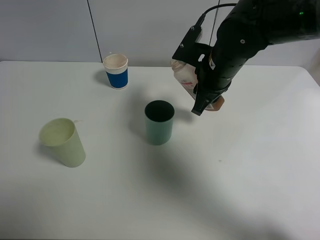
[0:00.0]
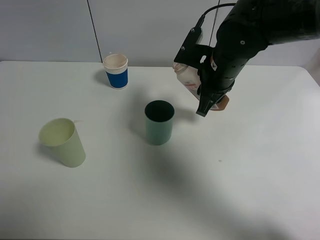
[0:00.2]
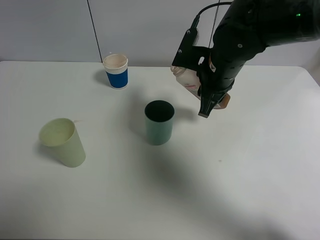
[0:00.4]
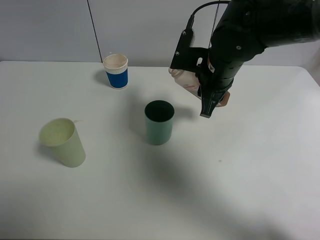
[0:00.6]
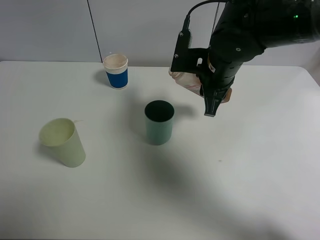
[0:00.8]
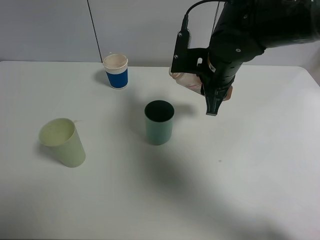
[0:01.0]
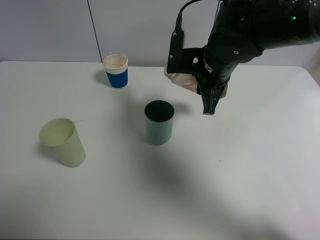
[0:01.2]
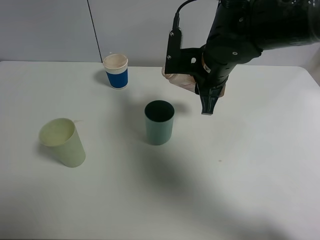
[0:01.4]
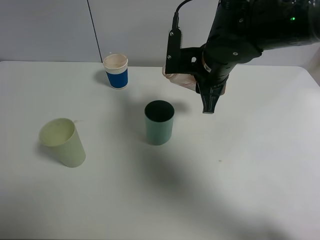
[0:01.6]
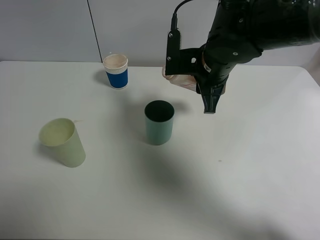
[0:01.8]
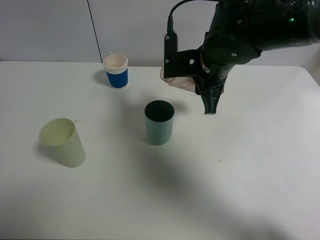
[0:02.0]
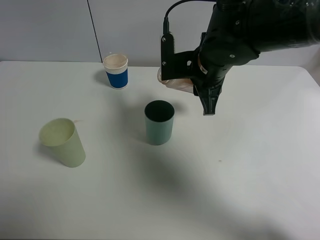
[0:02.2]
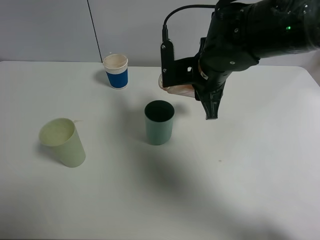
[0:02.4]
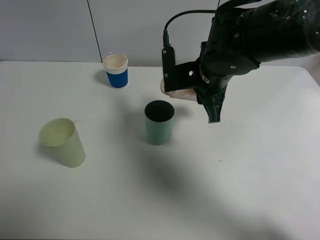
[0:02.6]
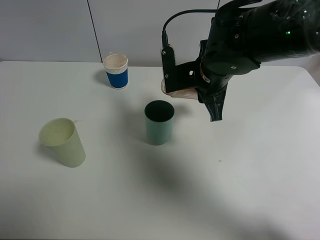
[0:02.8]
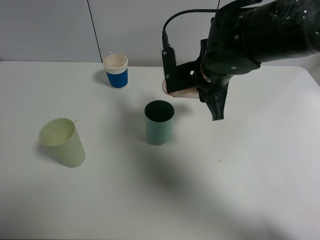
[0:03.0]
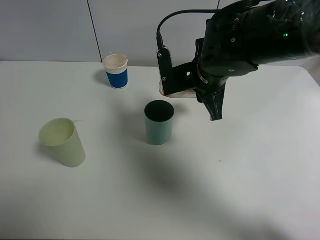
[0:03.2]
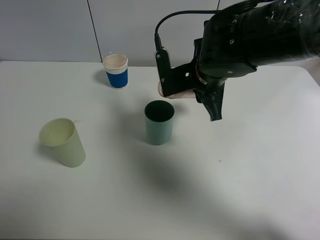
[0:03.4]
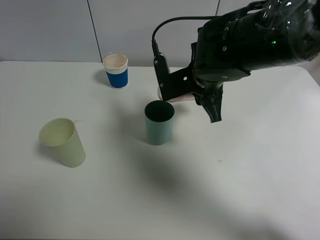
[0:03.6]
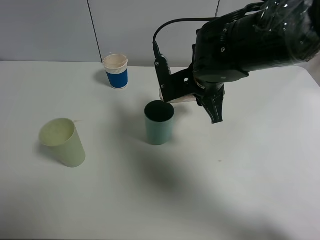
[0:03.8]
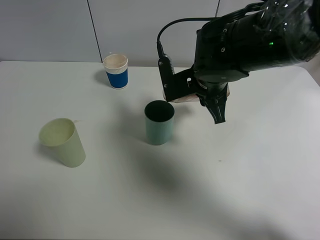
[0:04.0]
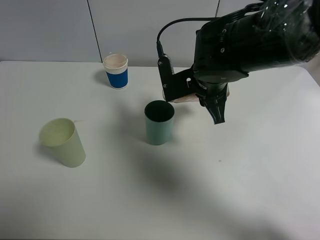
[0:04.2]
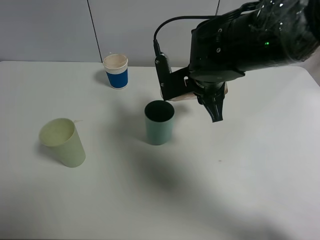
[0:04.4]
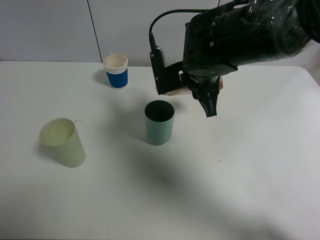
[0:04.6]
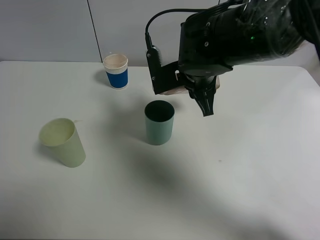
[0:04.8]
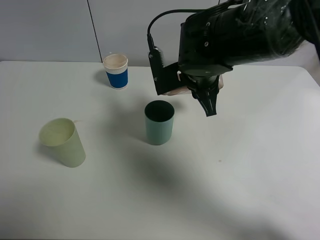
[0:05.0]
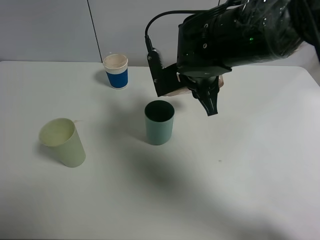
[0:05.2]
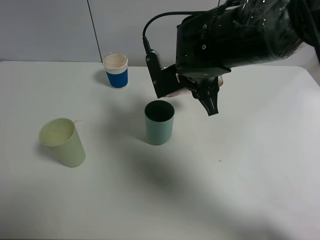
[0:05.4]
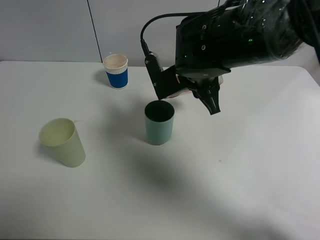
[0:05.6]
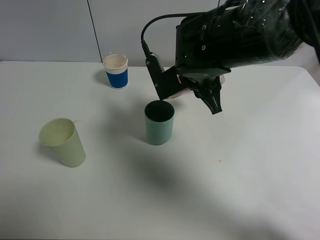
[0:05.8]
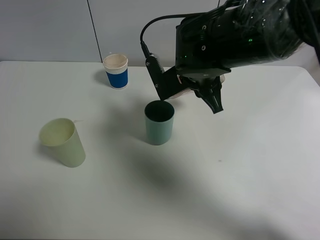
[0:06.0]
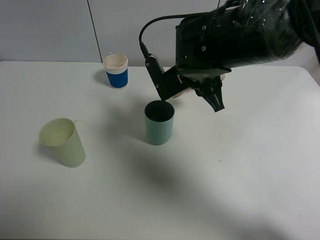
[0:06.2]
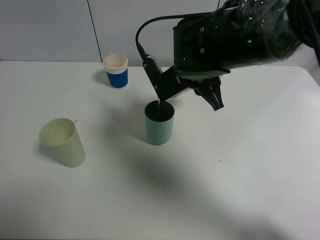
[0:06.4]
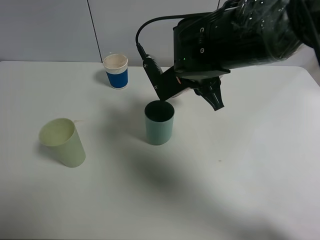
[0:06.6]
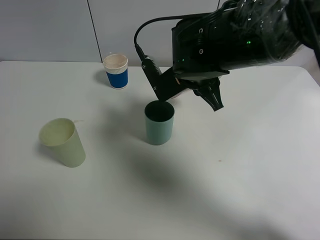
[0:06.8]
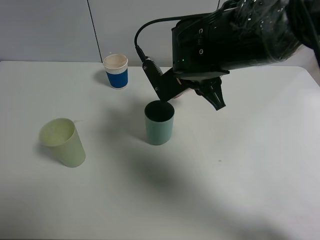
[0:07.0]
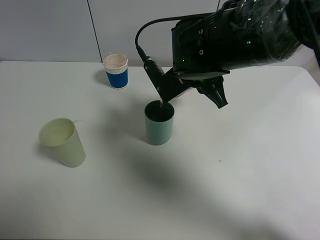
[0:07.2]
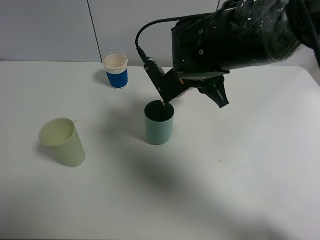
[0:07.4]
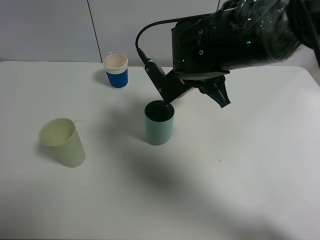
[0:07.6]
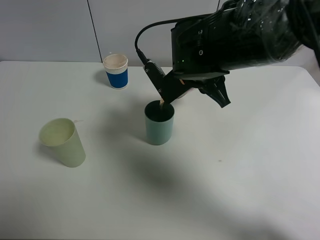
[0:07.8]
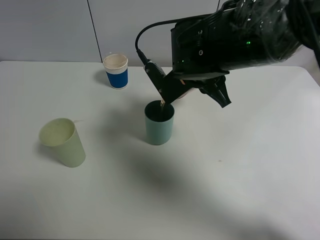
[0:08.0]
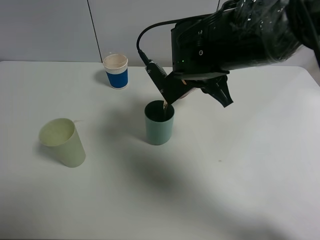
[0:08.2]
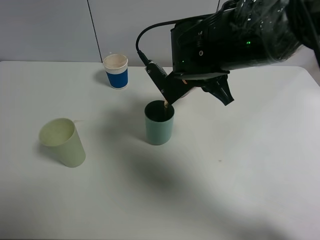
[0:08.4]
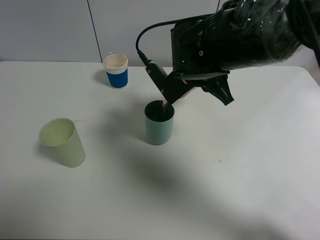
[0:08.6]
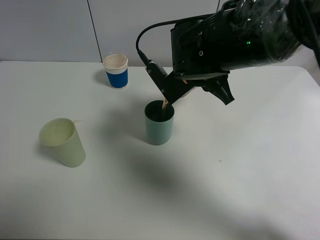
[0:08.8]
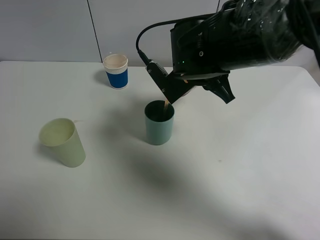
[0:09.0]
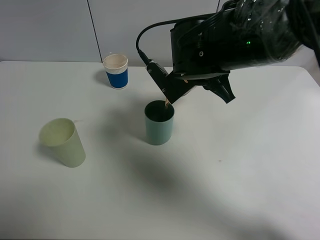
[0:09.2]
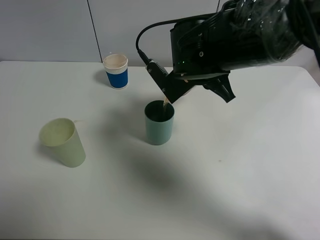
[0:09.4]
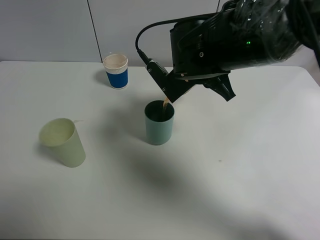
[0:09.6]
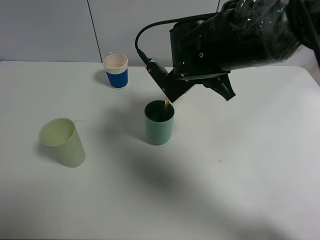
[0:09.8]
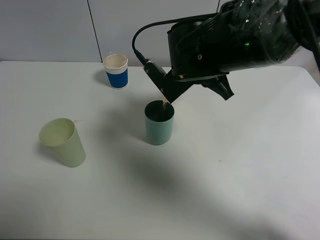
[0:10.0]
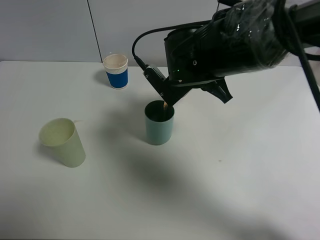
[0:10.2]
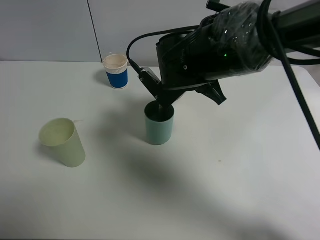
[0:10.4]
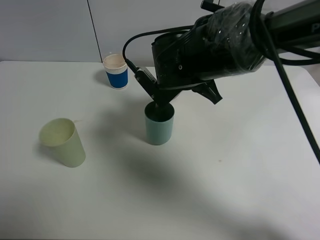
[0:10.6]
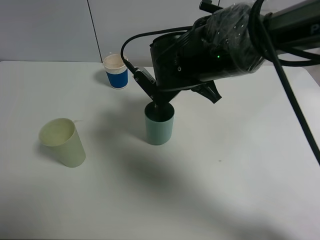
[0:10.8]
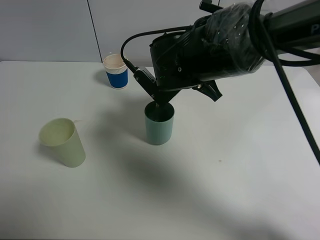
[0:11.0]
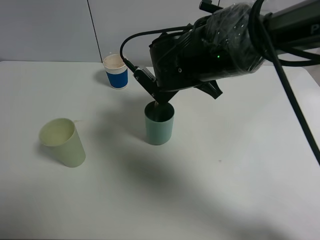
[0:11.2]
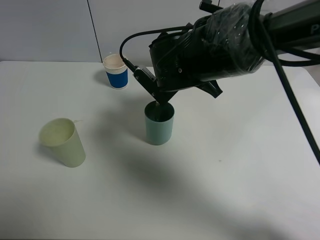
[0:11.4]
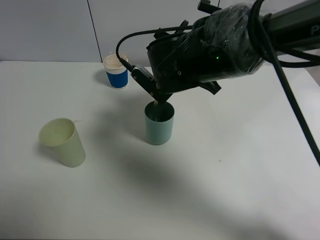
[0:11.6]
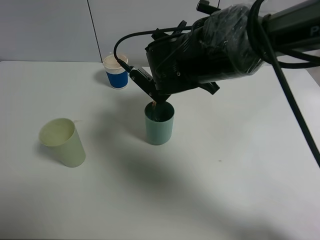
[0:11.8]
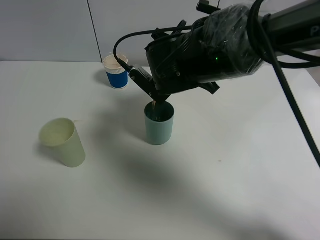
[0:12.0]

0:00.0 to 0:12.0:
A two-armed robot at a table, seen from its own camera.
Task of the whole recording: use a clamp to hold the bottle of the drink, pour the beverage into a random cup, then clamp the cup containing the drink and pour the drink into another random cup.
0:01.6 to 0:03.0: The grippers make only small movements.
0:03.0 to 0:06.0: The grippers stay close to where they were, moving slightly.
0:06.0 to 0:07.6: The grippers make only small movements.
0:07.6 to 0:09.0: Both grippers stay put.
0:09.0 to 0:12.0: The grippers stay close to where they were, moving slightly.

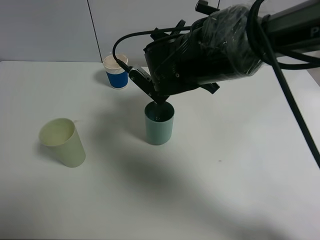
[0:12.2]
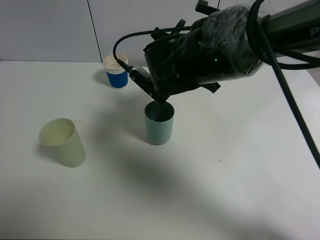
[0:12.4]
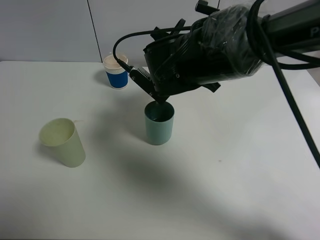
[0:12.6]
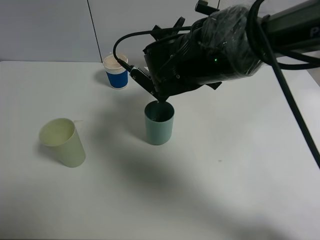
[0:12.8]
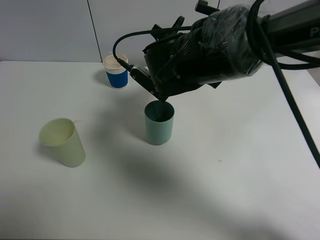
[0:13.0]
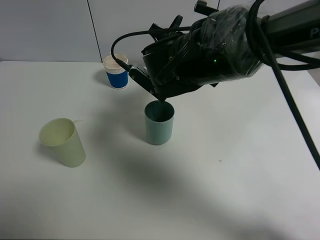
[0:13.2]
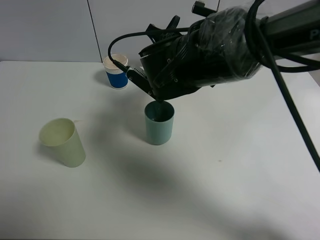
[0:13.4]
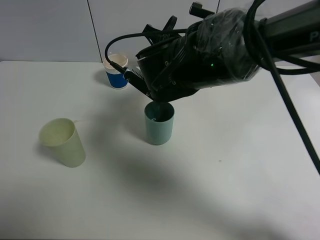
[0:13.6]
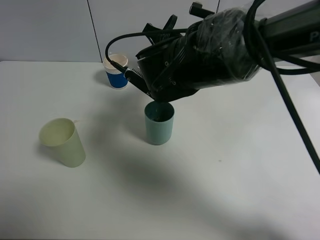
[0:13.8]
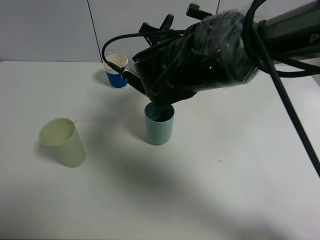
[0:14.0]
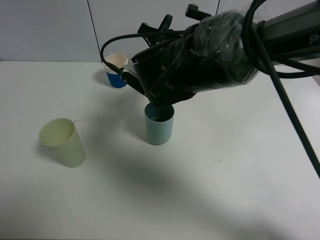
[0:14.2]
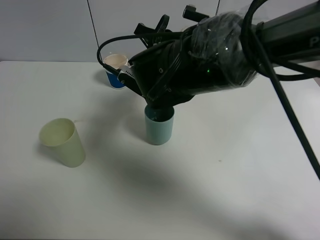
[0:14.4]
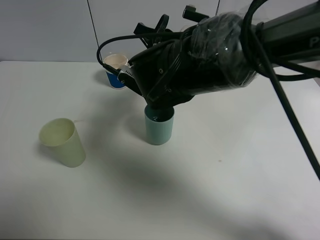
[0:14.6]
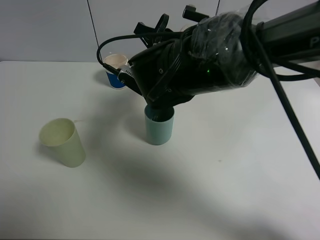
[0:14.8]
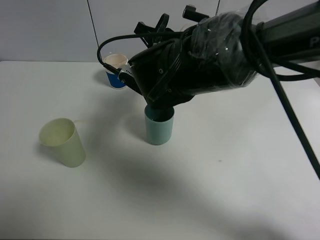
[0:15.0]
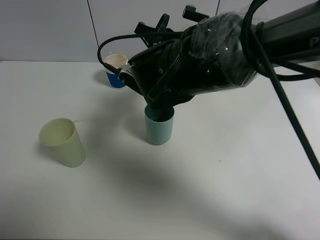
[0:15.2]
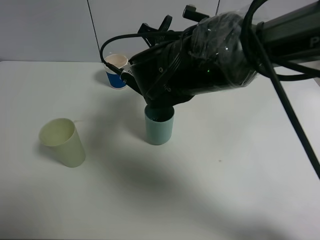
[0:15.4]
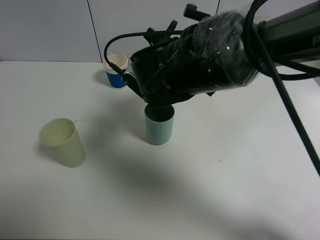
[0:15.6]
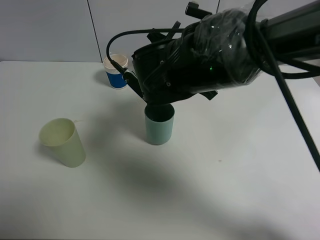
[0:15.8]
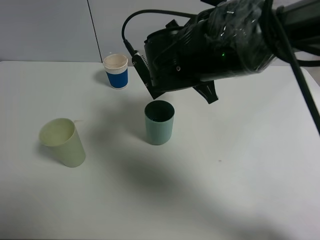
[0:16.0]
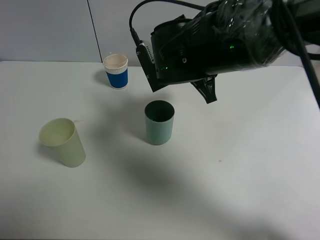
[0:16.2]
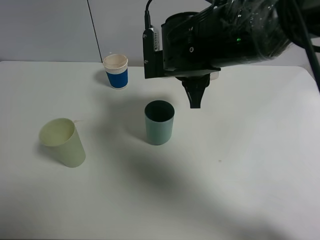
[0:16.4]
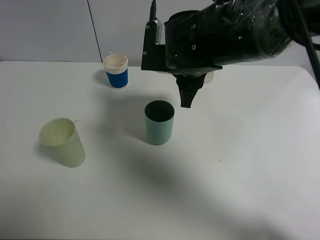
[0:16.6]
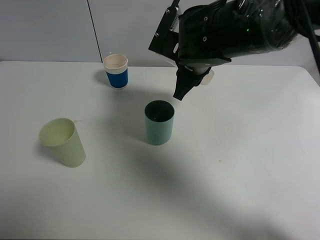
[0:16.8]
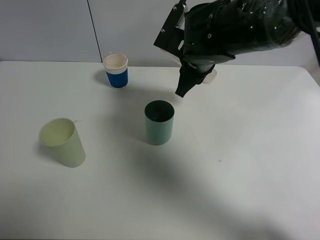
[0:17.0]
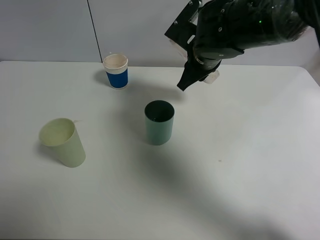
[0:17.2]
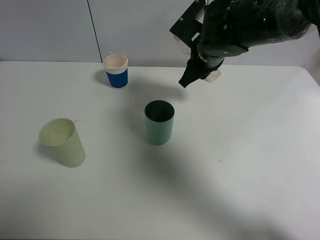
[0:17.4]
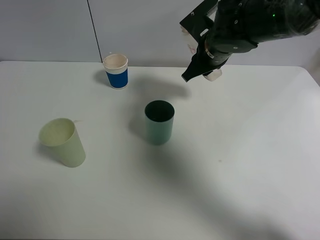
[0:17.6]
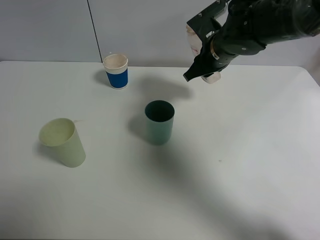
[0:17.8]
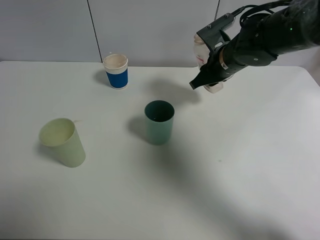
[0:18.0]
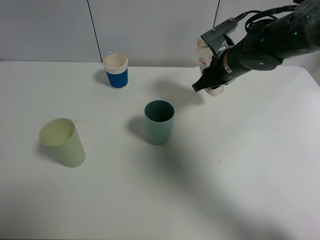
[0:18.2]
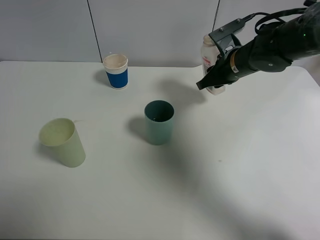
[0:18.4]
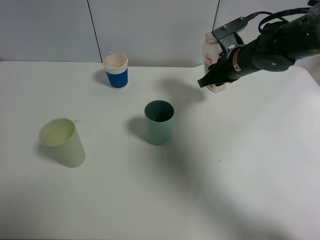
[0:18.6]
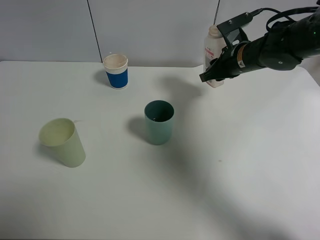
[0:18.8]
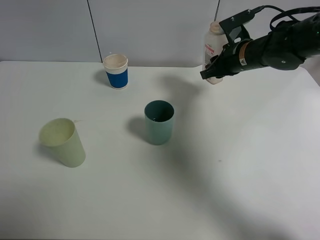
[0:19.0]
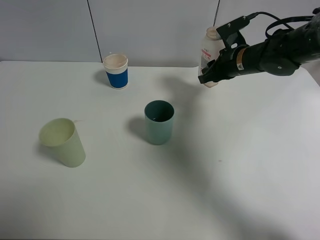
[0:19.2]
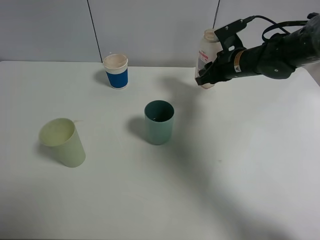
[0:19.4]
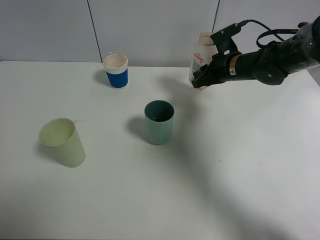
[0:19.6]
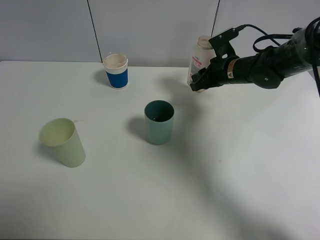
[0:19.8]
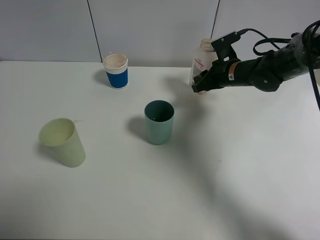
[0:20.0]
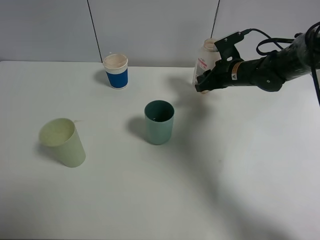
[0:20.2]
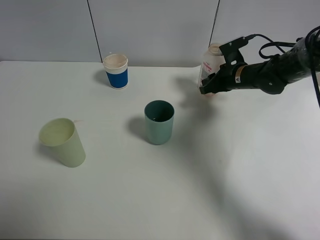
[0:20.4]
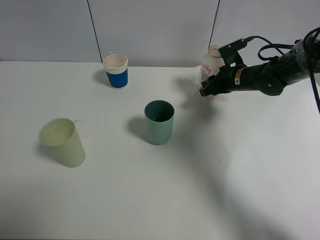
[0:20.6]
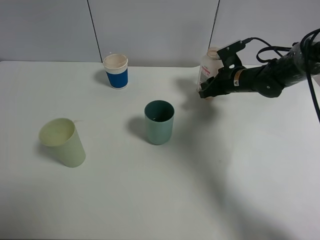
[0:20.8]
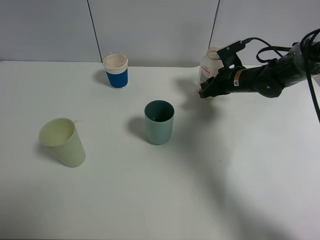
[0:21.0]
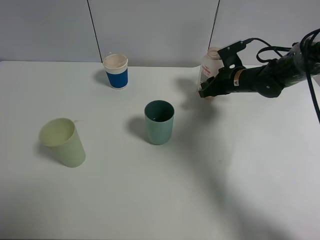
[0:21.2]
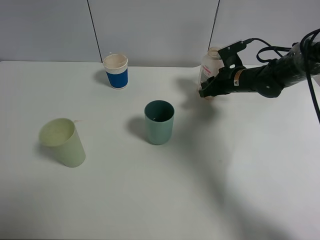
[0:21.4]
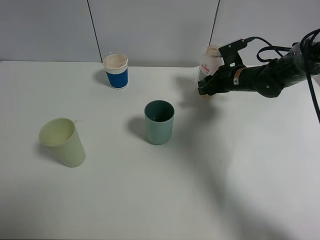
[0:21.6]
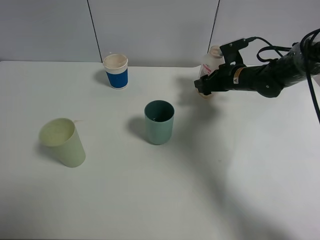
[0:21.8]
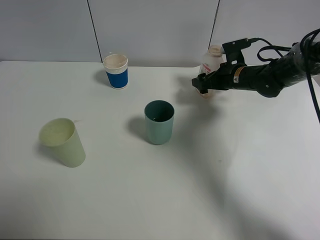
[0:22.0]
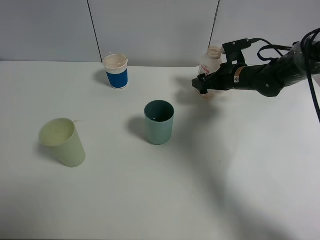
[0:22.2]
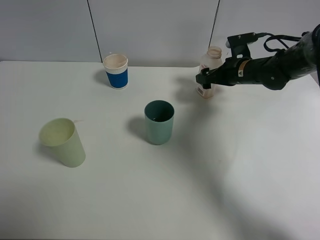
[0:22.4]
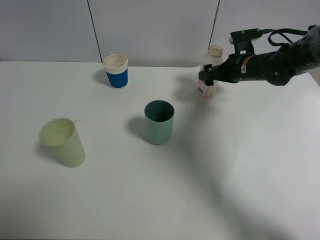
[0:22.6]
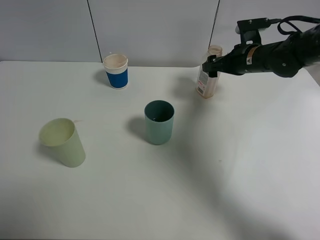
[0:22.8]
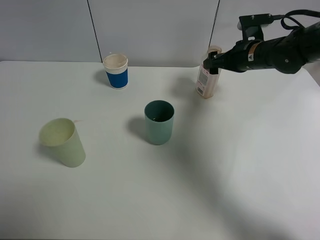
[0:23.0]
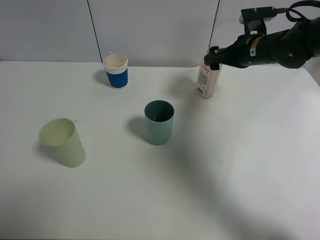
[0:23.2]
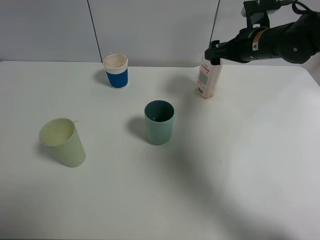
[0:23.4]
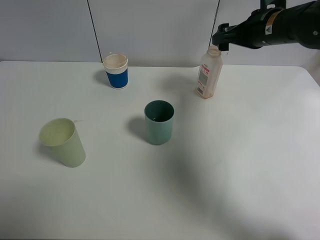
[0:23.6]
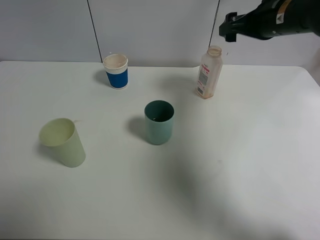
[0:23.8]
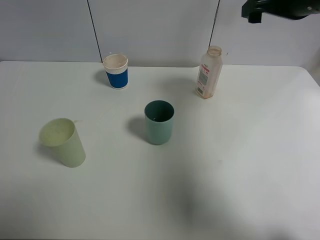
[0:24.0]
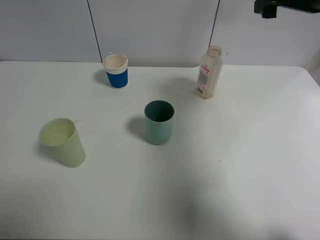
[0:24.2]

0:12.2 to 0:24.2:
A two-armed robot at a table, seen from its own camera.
Task of the whole recording: use a clamp to hold the bottle of the drink, pour the beverage into a random cup, then clamp the cup containing the drink and pour the drink into another random cup.
Step, 0:12.2 to 0:16.0: Pour the drink into the blue plastic cup with right gripper.
Step, 0:16.2 to 0:21.8: Place the drink bottle on the table with right gripper.
0:12.2 to 0:13.8: The grippers stay close to where they were, moving slightly.
0:13.8 to 0:15.2: Neither gripper changes place.
0:16.6 to 0:18.2: The right gripper travels to the right and forward by about 15 cm.
0:18.2 to 0:19.8: The right gripper ends up roughly 5 cm from where it was.
0:19.8 to 0:21.2: The grippers make only small movements.
0:21.2 to 0:22.6: The right gripper opens up.
0:22.6 to 0:24.2: The right gripper goes about 20 cm upward and backward.
